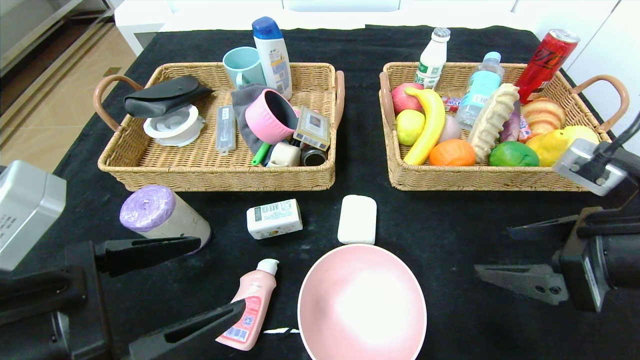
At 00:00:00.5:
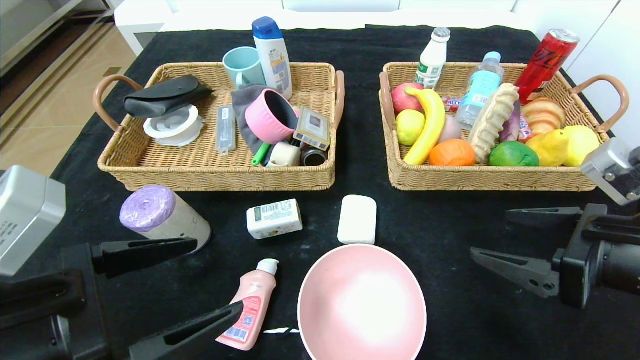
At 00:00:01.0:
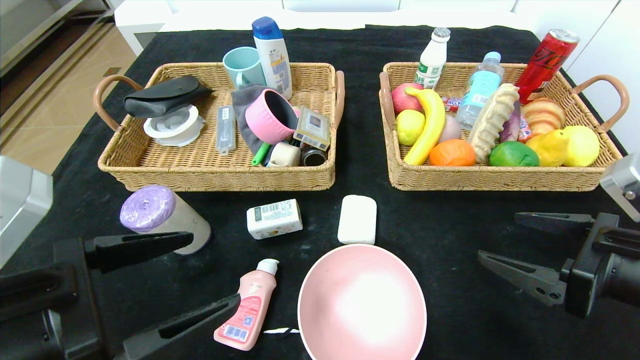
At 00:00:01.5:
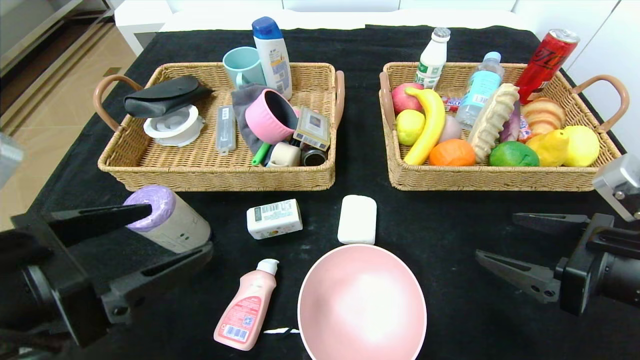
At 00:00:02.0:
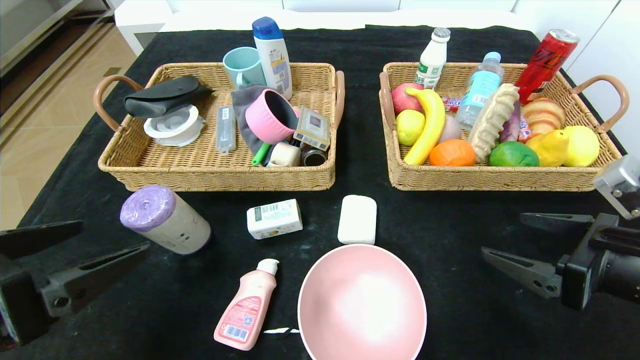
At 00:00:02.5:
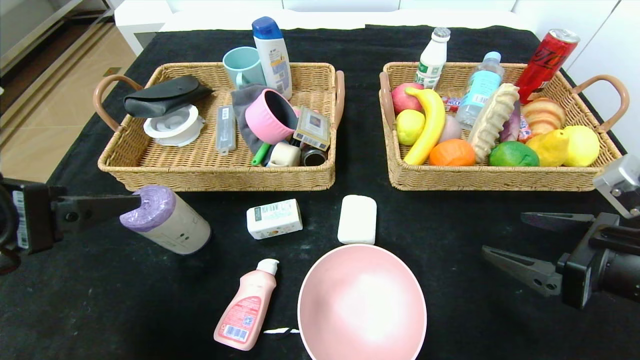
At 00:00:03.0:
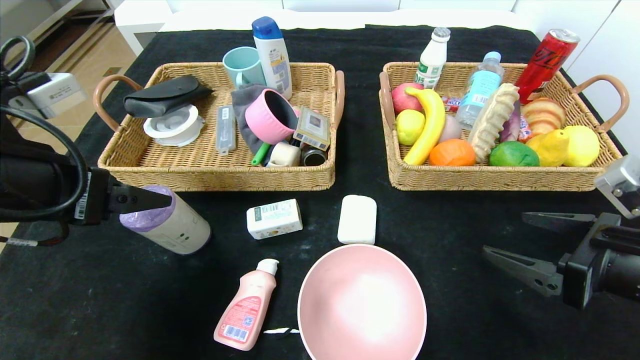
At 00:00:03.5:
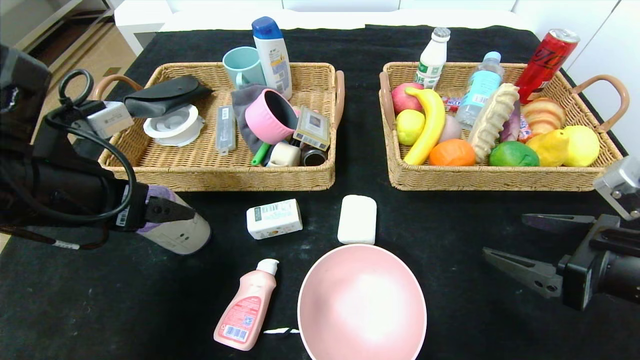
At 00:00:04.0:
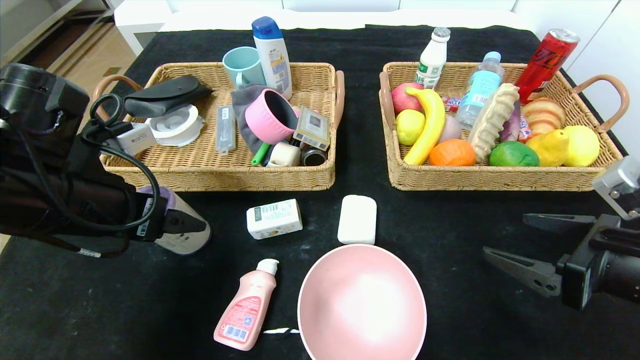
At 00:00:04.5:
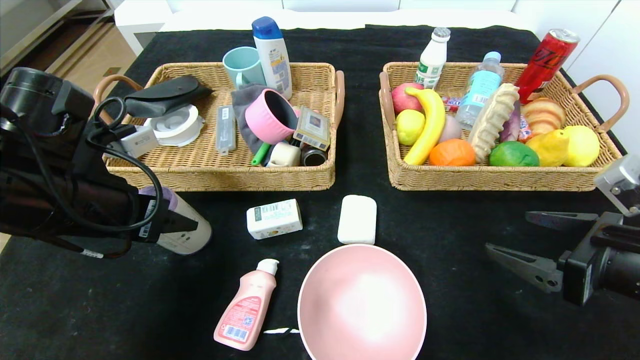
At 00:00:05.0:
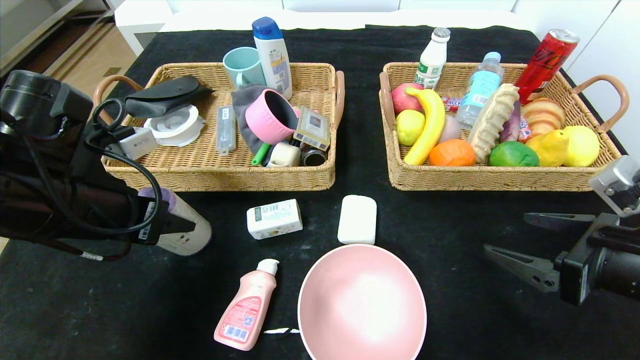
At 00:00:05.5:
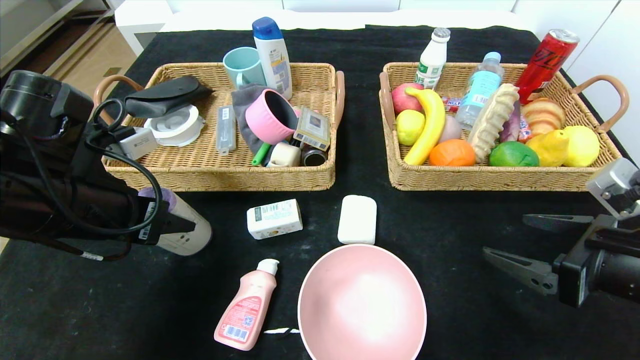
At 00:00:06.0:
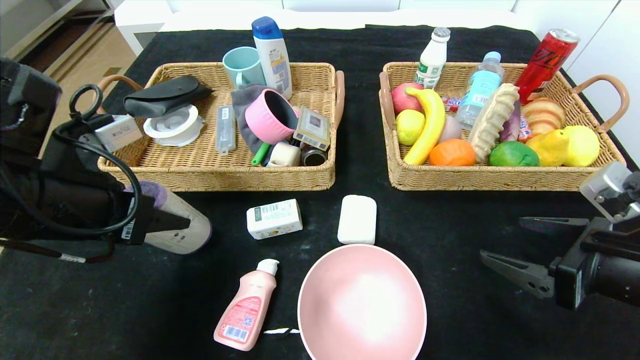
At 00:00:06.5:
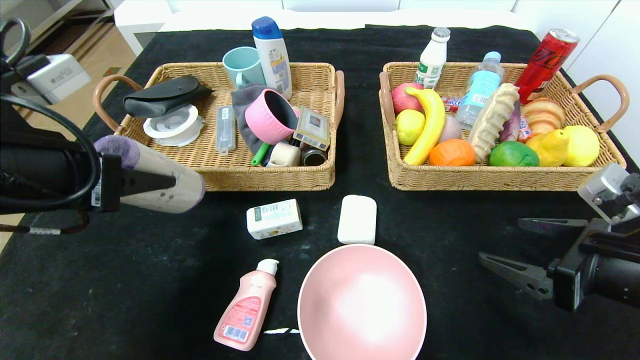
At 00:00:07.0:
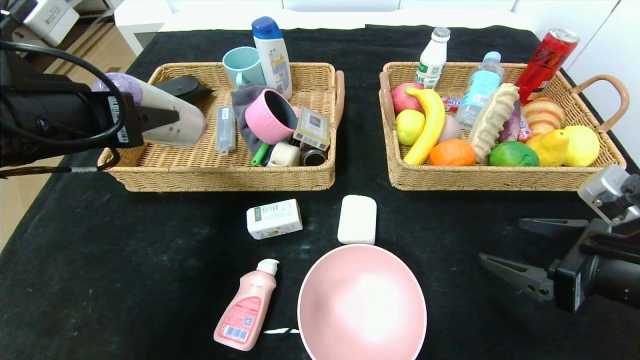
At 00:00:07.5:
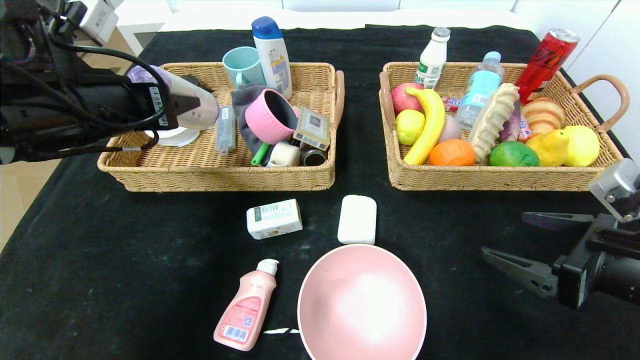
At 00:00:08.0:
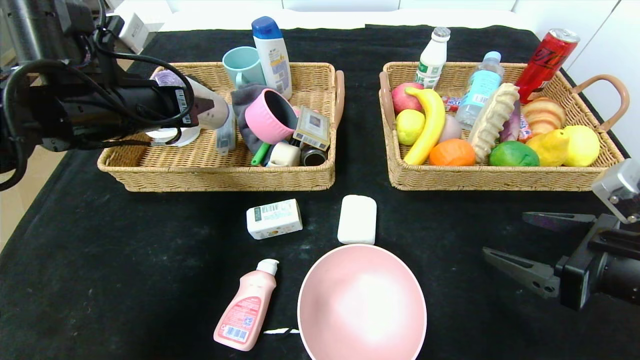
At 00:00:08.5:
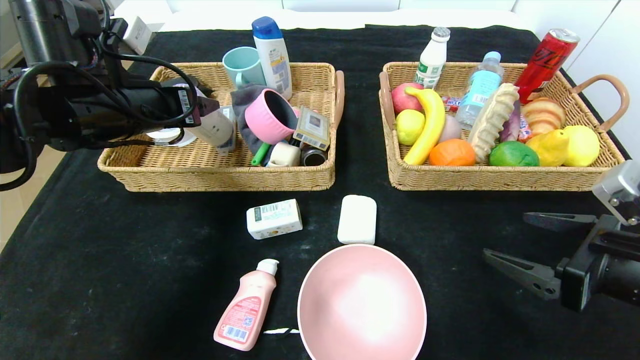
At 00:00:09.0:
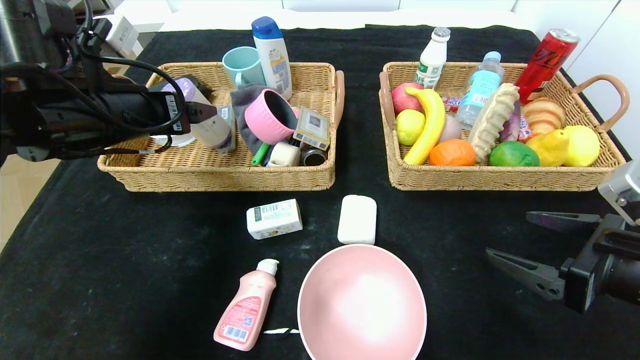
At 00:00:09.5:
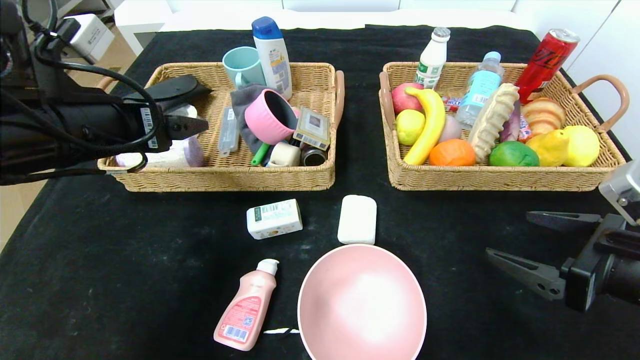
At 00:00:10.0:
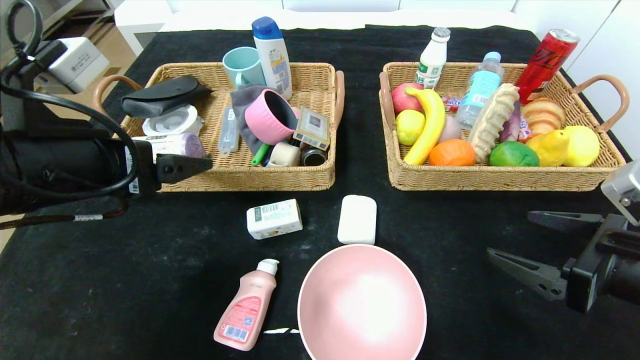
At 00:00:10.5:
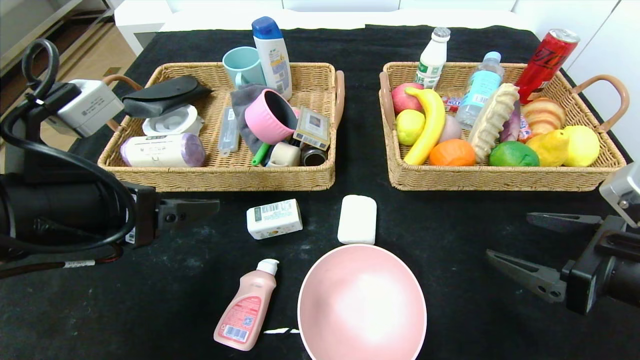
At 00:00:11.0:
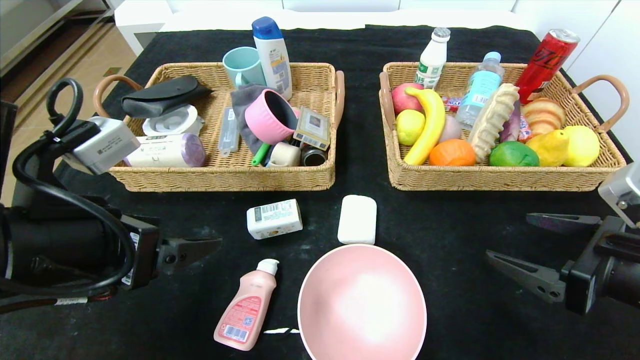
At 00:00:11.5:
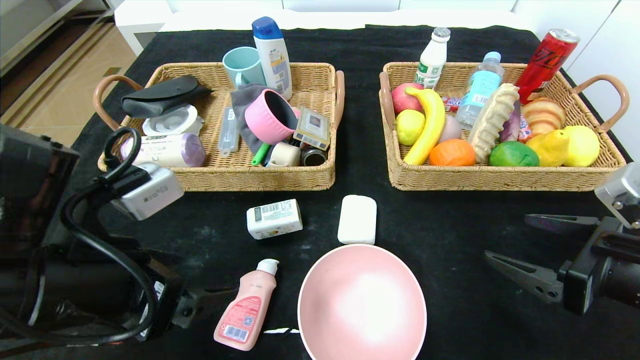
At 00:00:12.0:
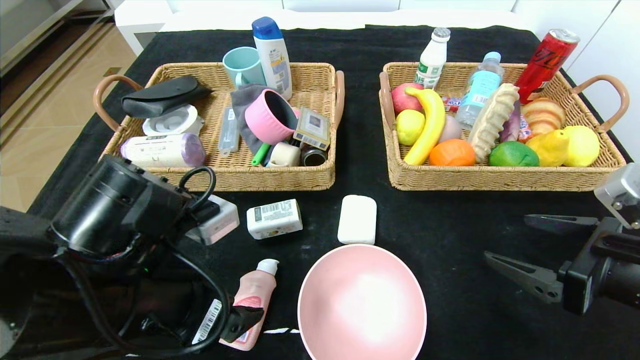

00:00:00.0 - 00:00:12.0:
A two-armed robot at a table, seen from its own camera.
Step, 00:00:00.0 - 00:00:09.0: Grasp the purple garbage bag and put it in the left basket.
00:00:00.0 - 00:00:02.0: The left gripper moves about 5 cm.
00:00:02.0 - 00:00:04.0: The left gripper moves forward, about 15 cm.
00:00:04.0 - 00:00:06.0: The left gripper closes.
00:00:06.0 - 00:00:08.0: The left gripper goes approximately 10 cm forward.
00:00:08.0 - 00:00:10.0: The left gripper shifts some 10 cm backward, and opens up.
00:00:10.0 - 00:00:12.0: The left gripper goes about 10 cm downward and to the right.

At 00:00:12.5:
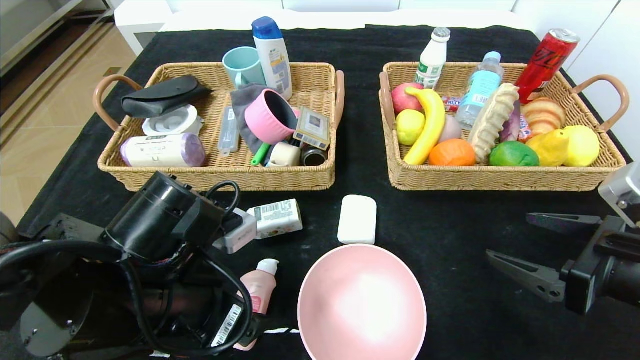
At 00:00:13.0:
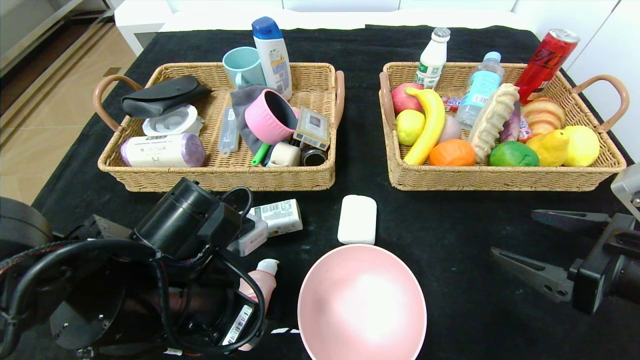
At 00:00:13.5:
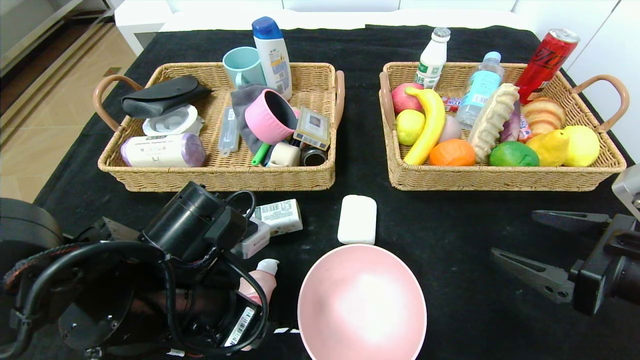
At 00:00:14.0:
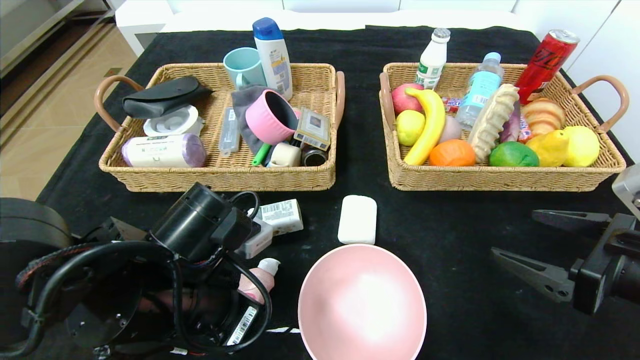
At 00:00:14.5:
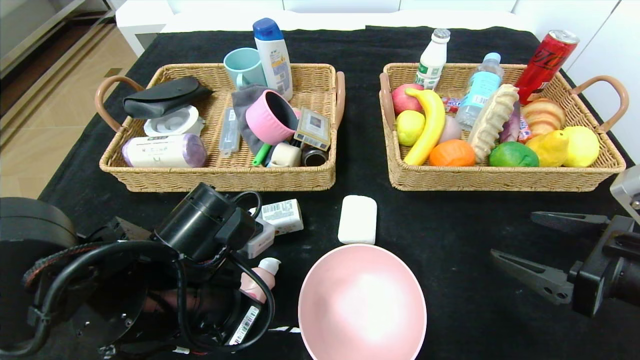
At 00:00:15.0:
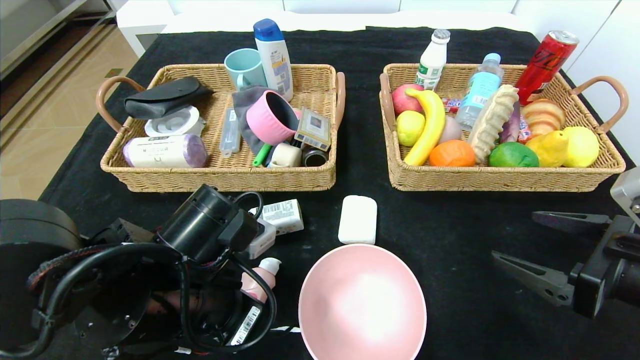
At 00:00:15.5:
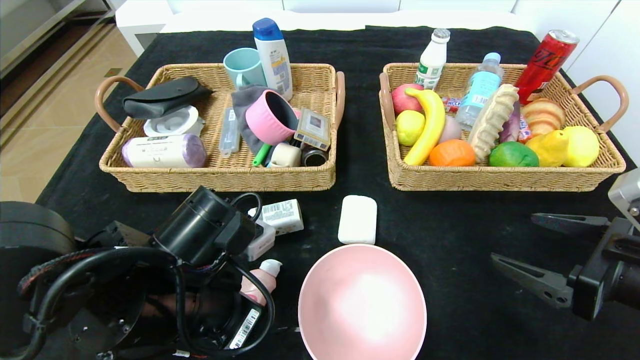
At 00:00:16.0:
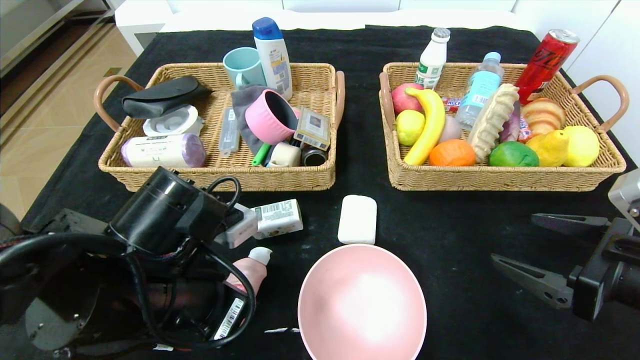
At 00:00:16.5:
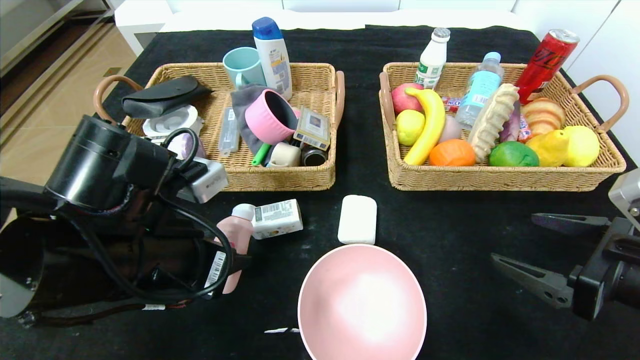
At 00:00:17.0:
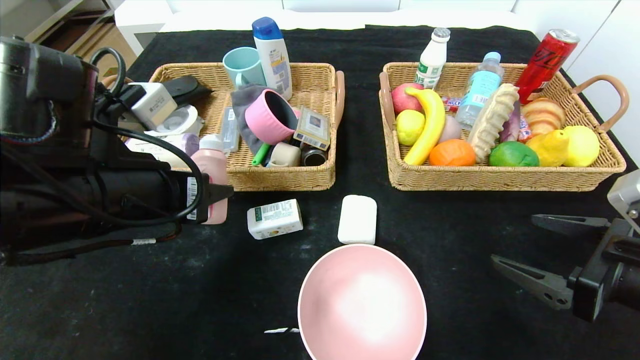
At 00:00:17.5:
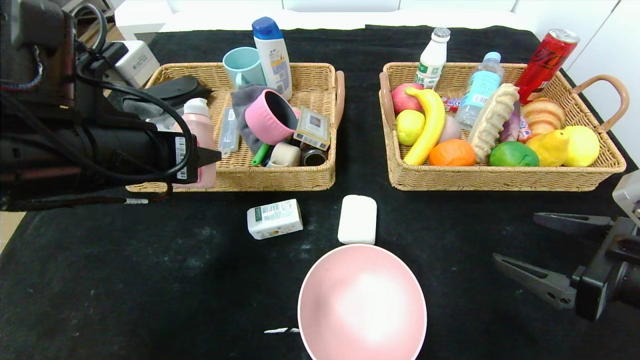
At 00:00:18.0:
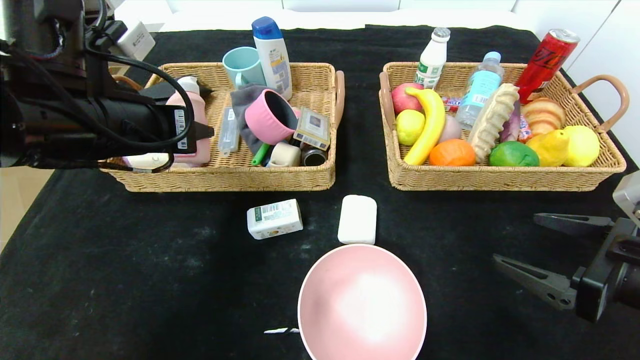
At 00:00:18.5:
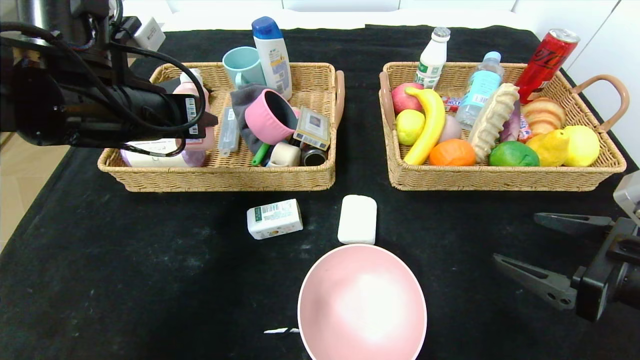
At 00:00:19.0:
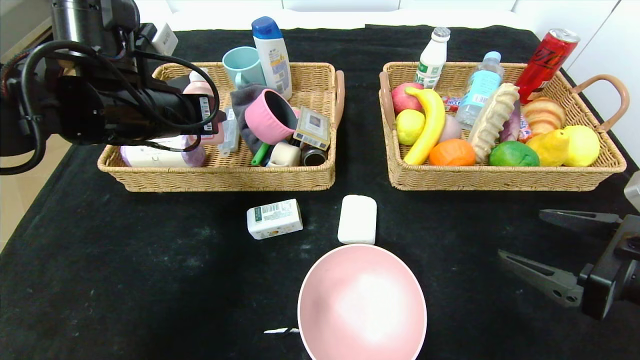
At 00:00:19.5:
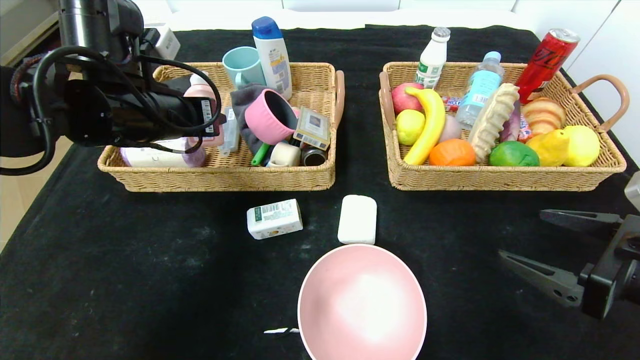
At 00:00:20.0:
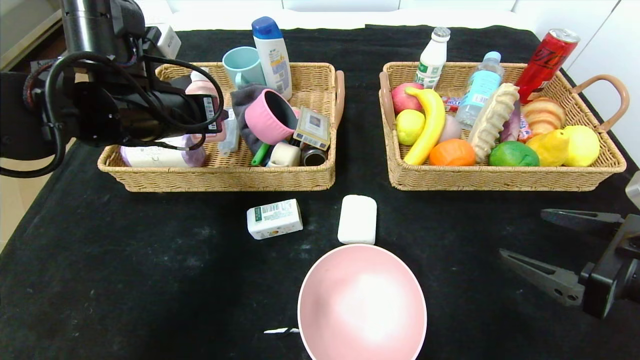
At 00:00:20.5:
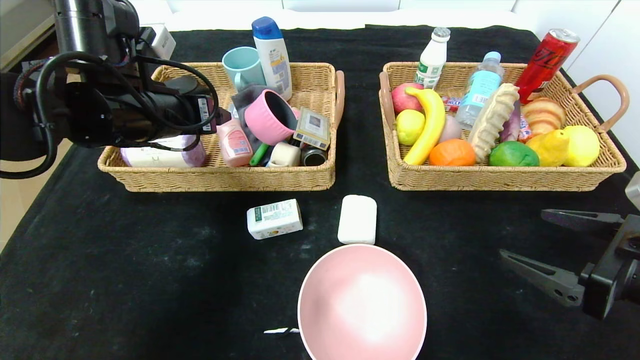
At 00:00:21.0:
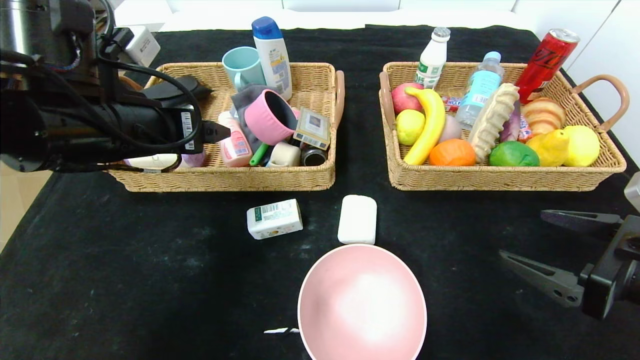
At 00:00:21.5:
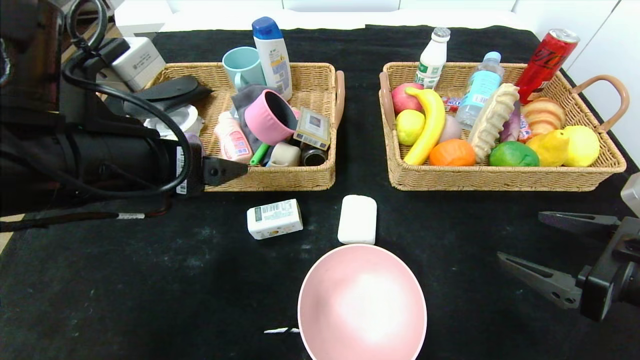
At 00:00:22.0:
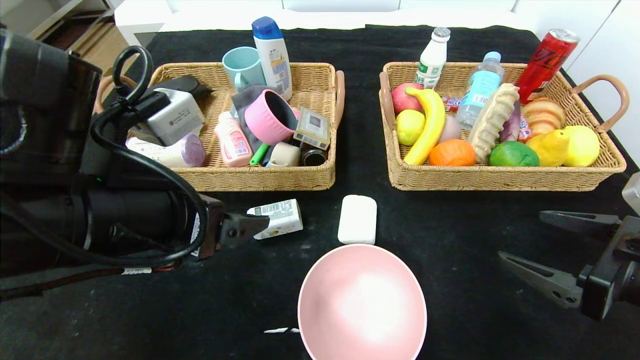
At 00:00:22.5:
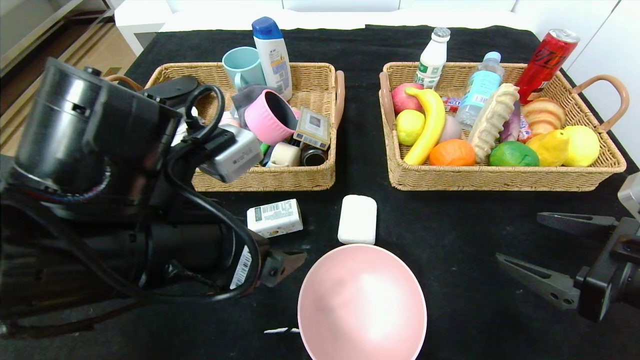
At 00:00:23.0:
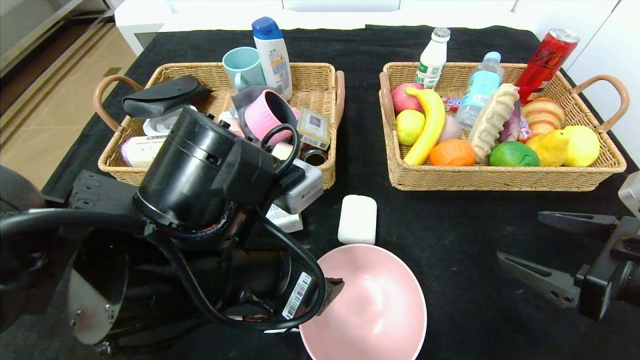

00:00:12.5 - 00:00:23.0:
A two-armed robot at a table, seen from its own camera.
Step, 00:00:12.5 - 00:00:20.0: Grasp the detergent and put it in the left basket.
00:00:12.5 - 00:00:14.5: The left gripper closes its fingers.
00:00:14.5 - 00:00:16.5: The left gripper shifts roughly 5 cm upward.
00:00:16.5 - 00:00:19.0: The left gripper travels forward and upward by roughly 15 cm.
00:00:19.0 - 00:00:21.0: The left gripper opens its fingers.
00:00:21.0 - 00:00:23.0: The left gripper moves to the right, backward and downward, roughly 15 cm.
